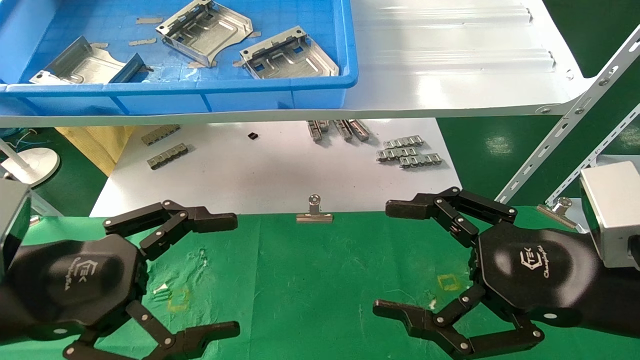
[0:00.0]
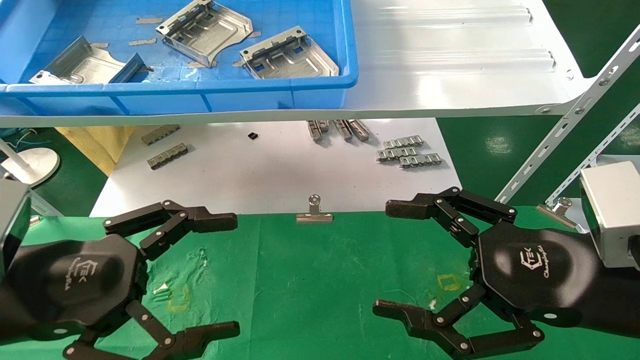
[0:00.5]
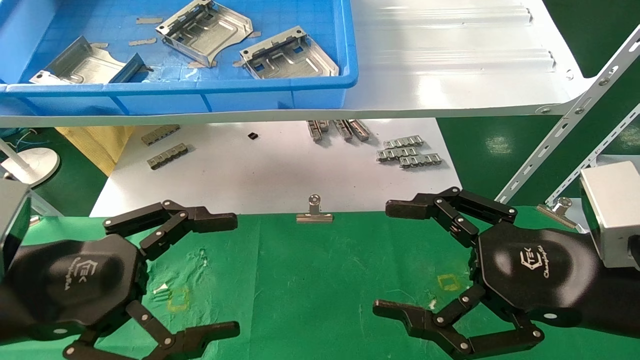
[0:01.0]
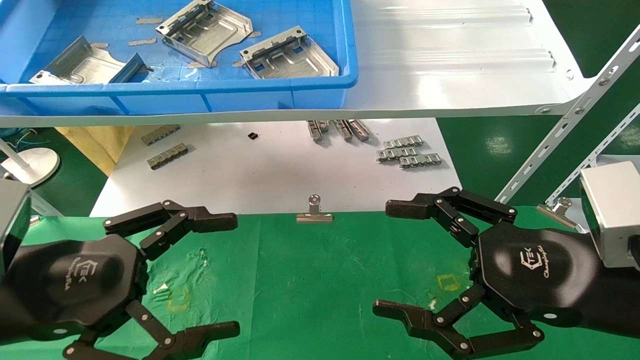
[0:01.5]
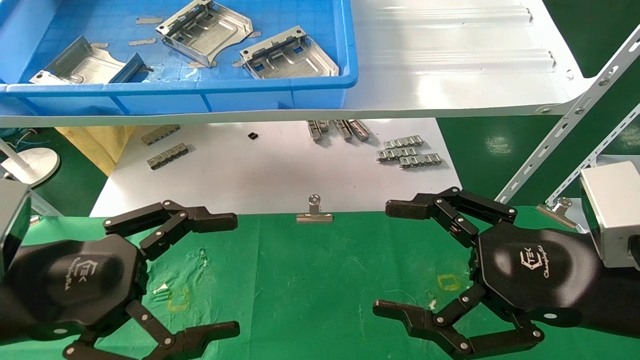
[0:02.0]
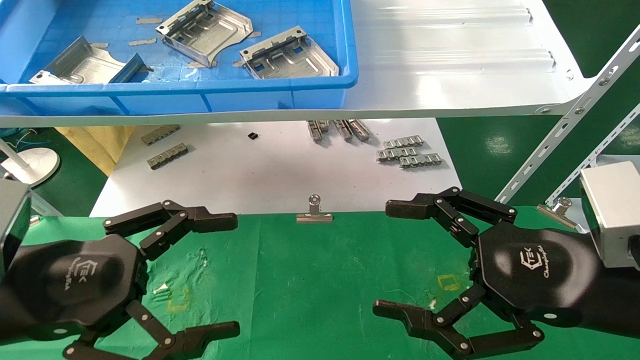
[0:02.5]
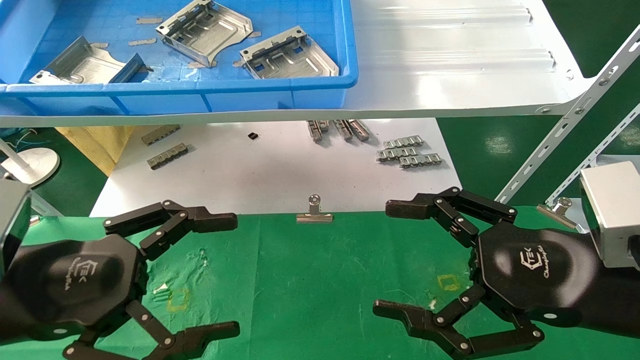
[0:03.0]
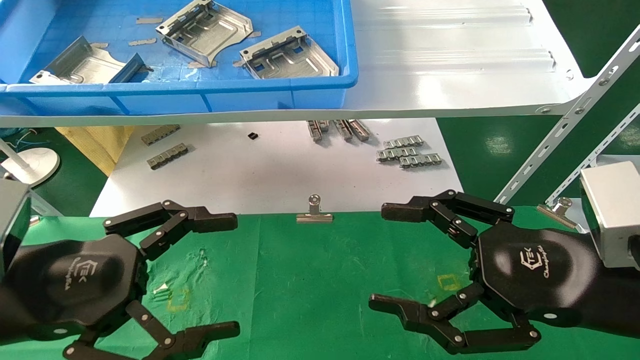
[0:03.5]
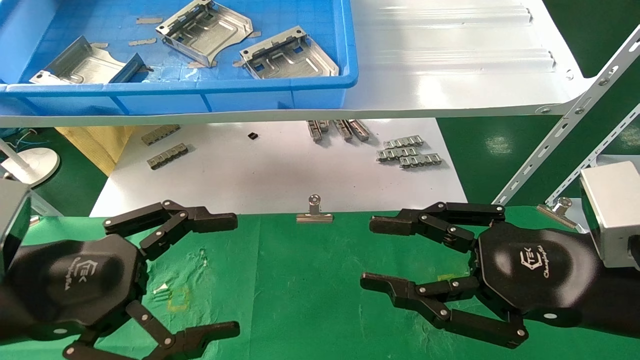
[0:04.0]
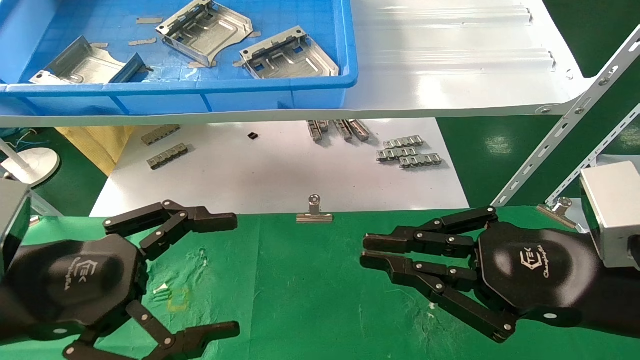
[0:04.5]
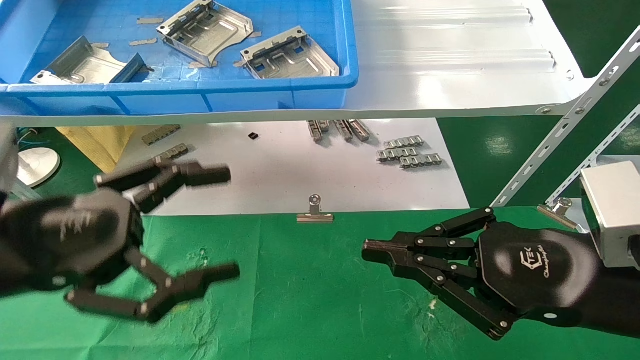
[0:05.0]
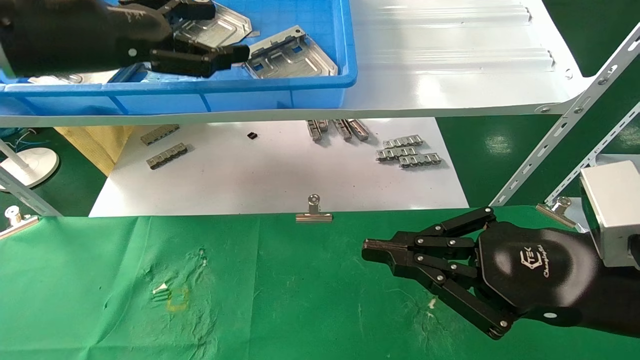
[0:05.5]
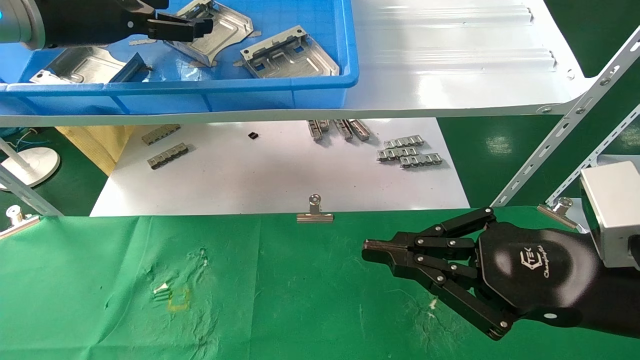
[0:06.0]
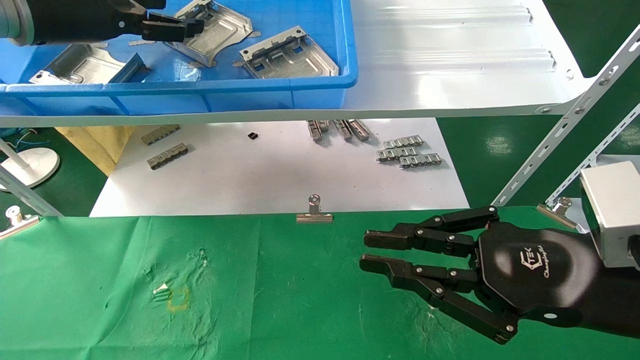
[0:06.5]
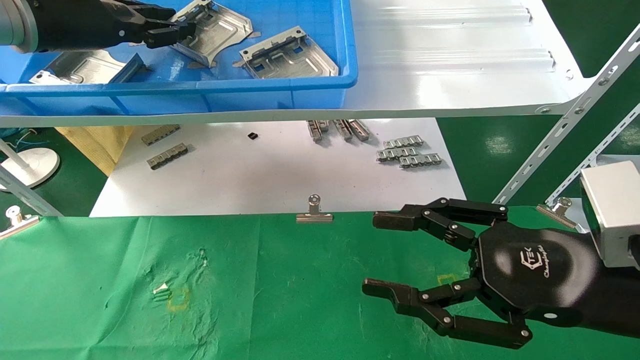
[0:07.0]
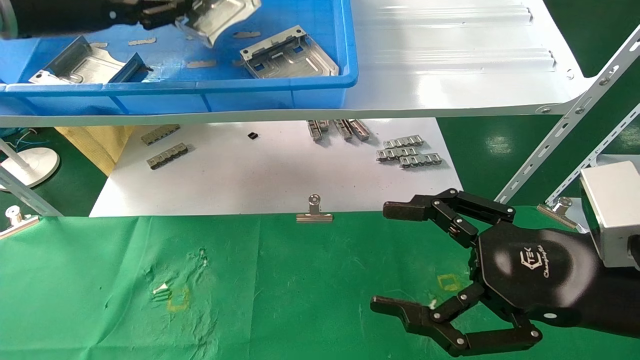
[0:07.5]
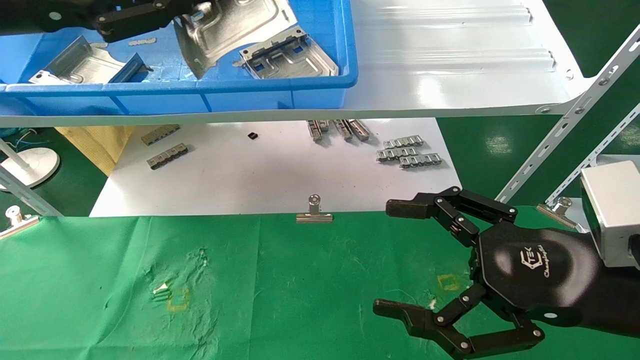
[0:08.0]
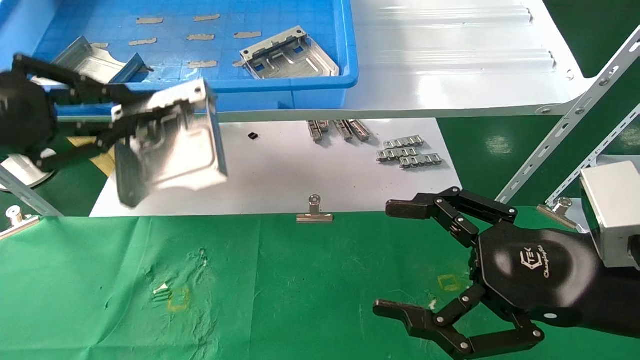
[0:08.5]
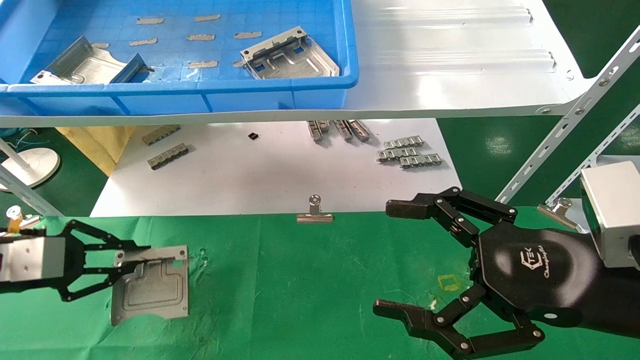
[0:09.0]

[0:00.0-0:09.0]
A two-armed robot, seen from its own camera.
Task of the whole recording: use the mechanical arm to pick up the parts and place them on the table.
Step, 0:05.5 to 0:07.0: Pick up the hard drive bracket from the feeding area.
0:00.0 to 0:02.0: The two grippers keep their place.
0:02.0 to 0:04.5: The right gripper closes up.
0:04.5 to 0:07.0: The left gripper moves upward and forward, about 30 cm, and closes up.
0:07.0 to 0:09.0: The right gripper opens. Meanwhile the left gripper moves downward and to the left, about 25 cm, and closes.

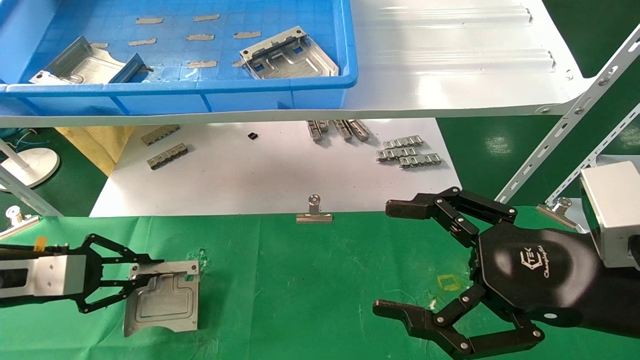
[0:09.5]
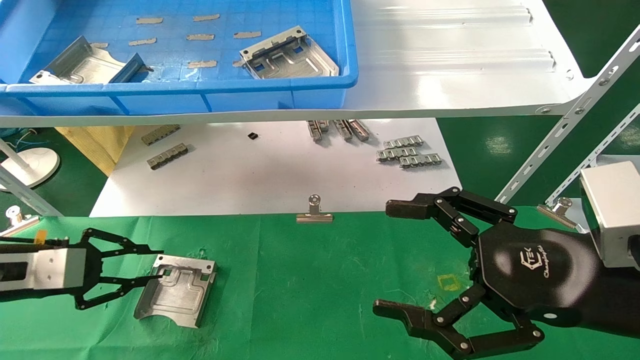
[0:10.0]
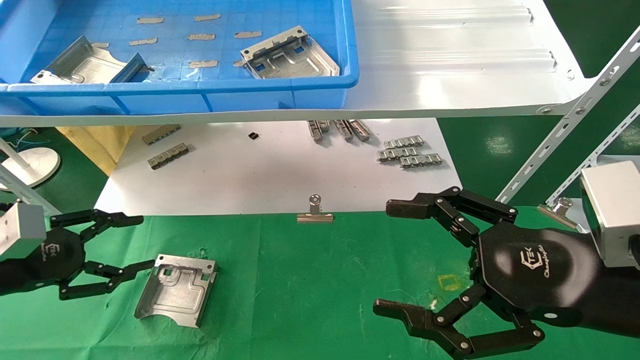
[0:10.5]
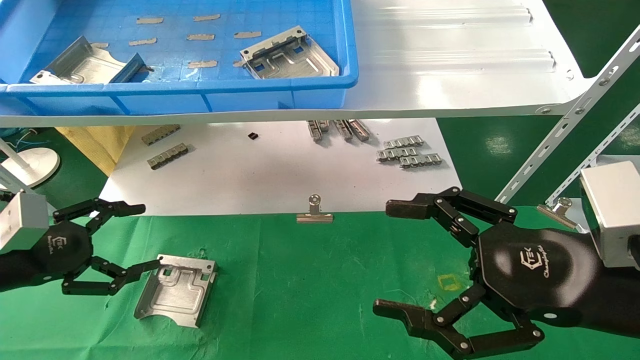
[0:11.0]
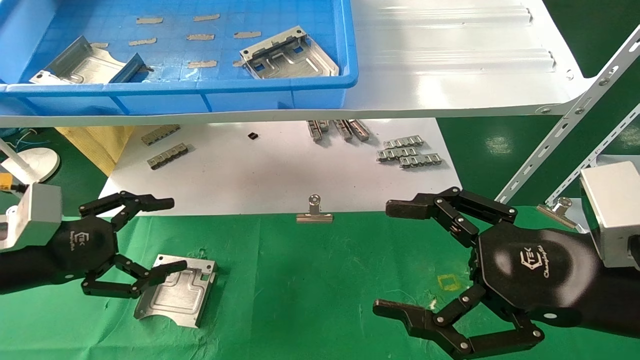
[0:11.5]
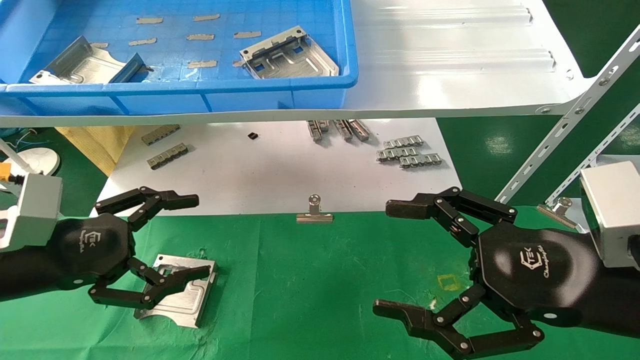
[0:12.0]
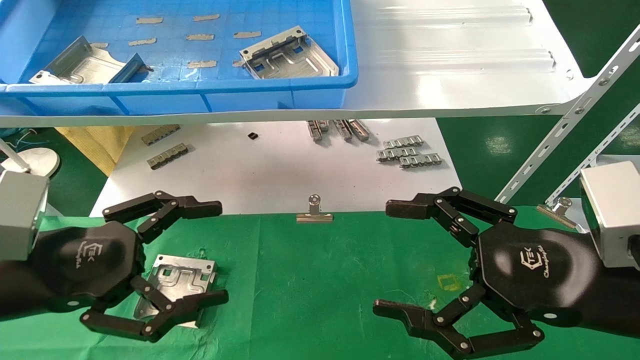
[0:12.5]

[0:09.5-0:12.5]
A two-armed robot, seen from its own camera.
Task of the whole recording: use the mechanical arm to pick up the parts and place them on the table.
0:09.5 to 0:11.0: The left gripper opens.
0:11.0 to 0:12.5: The left gripper shifts roughly 15 cm to the right and backward.

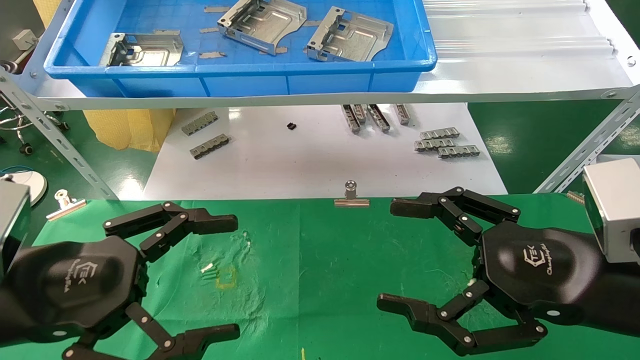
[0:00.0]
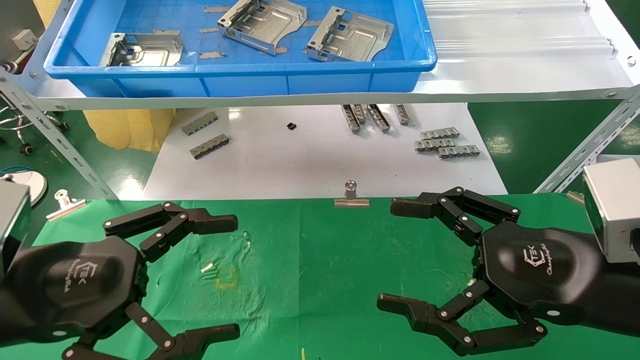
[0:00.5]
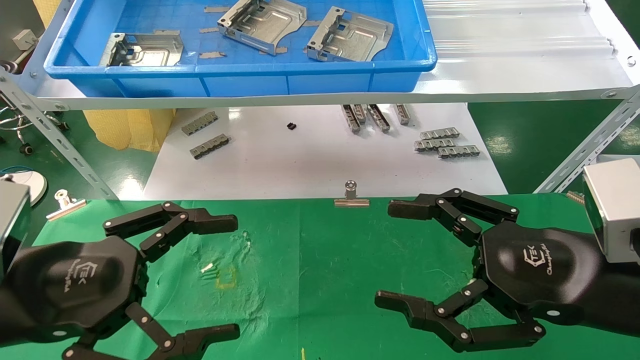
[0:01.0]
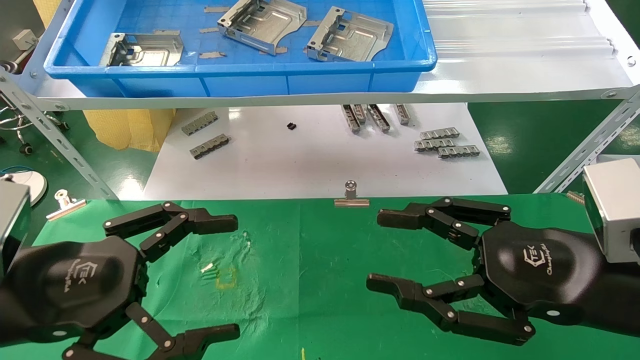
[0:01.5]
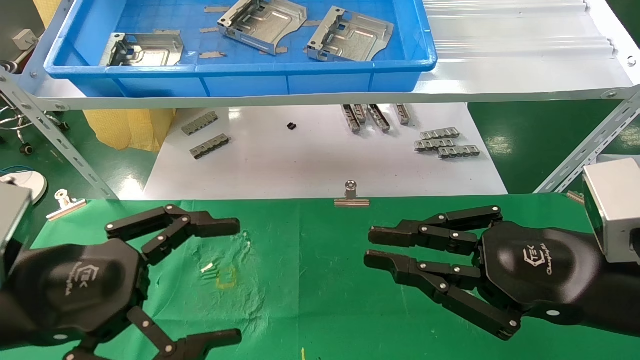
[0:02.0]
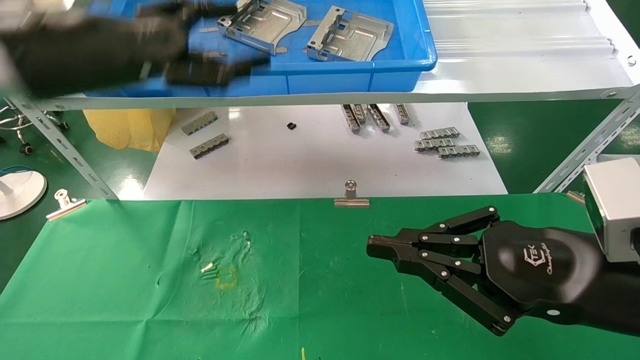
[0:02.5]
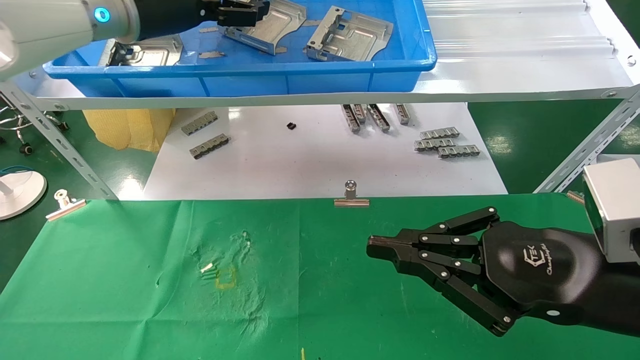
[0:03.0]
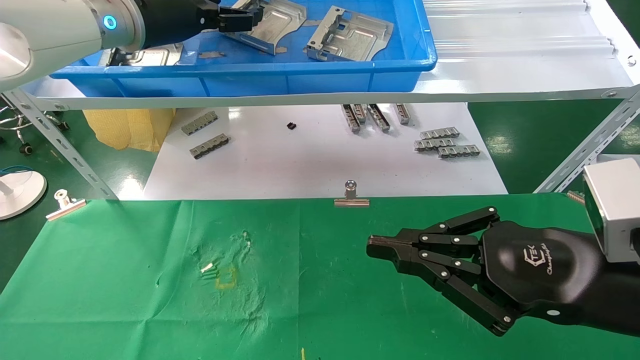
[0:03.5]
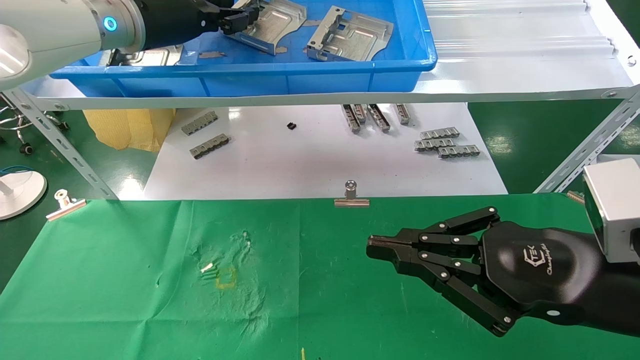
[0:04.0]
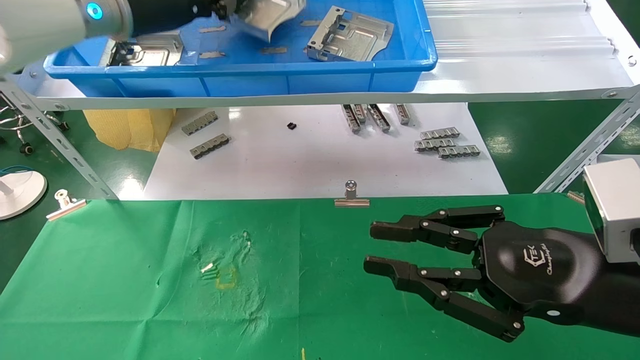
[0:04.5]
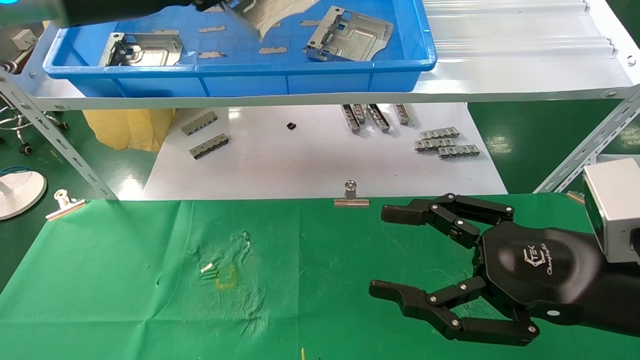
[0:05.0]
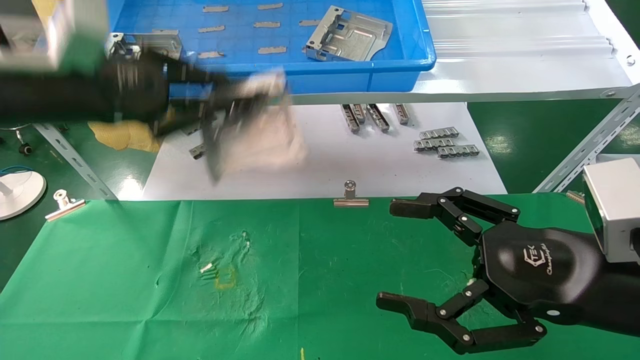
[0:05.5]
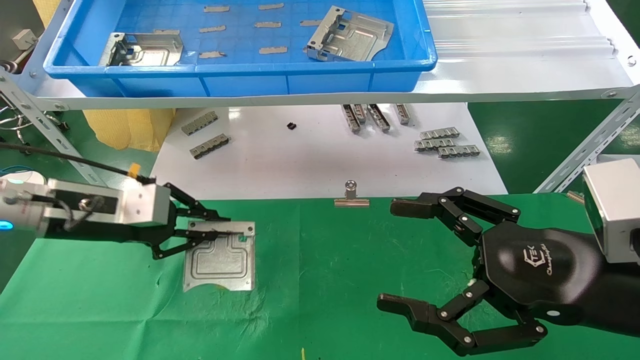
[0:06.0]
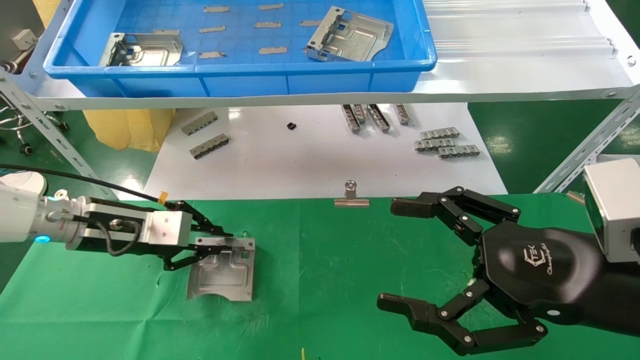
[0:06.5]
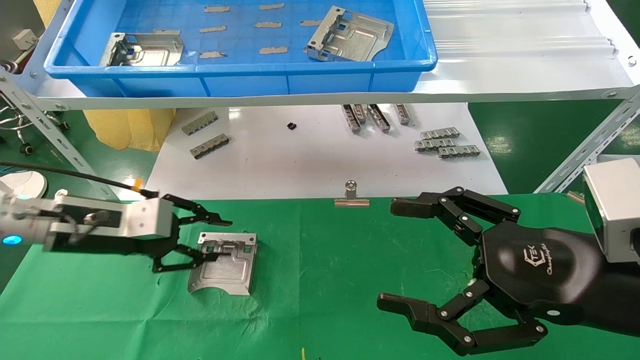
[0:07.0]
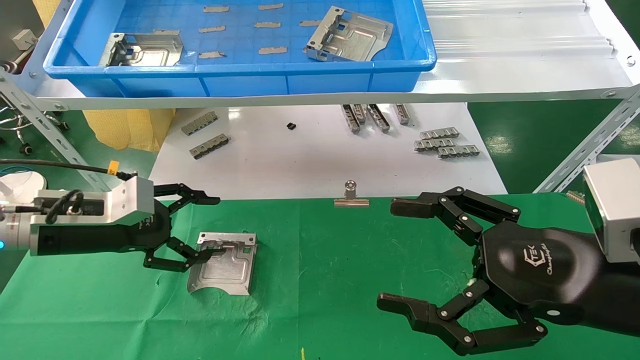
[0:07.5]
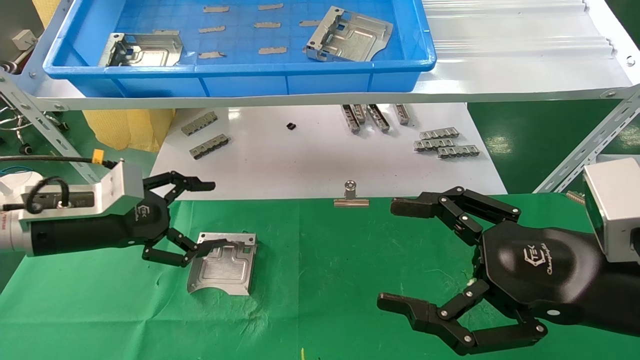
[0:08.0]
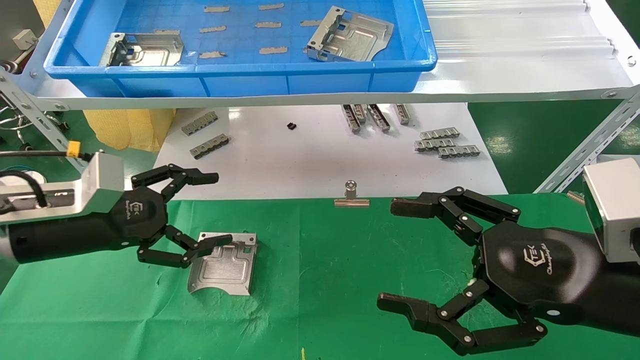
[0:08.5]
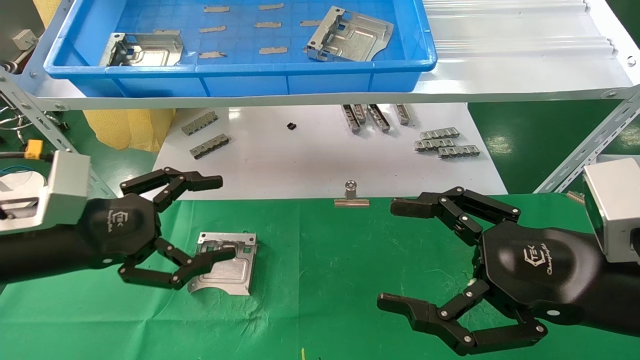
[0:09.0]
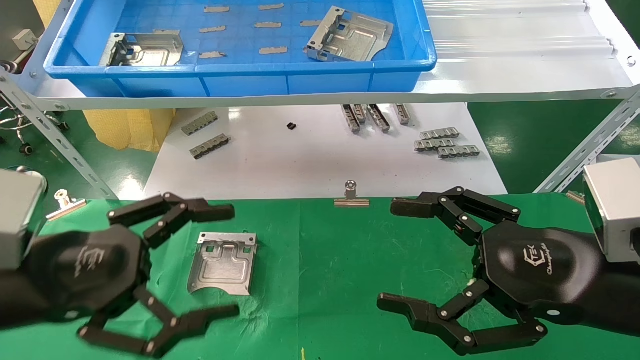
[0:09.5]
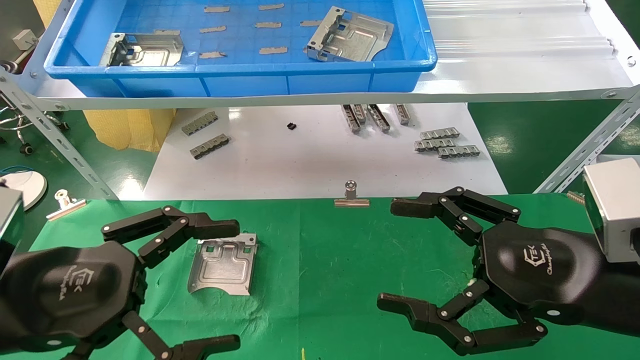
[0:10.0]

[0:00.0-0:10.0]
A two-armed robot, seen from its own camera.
Task of the whole recording: use the mechanical arm to pick up the parts and place them on the table.
Step, 0:02.0 to 0:05.0: Pick up the hard drive bracket from the feeding area.
Step, 0:05.5 to 0:08.0: Place the hard drive bracket into the box.
0:00.0 to 0:02.0: The right gripper closes its fingers.
0:02.0 to 0:04.0: The left gripper heads forward and upward, covering about 30 cm, and closes its fingers.
0:04.0 to 0:06.0: The right gripper opens its fingers. The left gripper heads downward and to the left, covering about 25 cm, and closes up.
0:06.0 to 0:08.0: The left gripper opens up.
0:08.0 to 0:10.0: The left gripper heads backward, covering approximately 15 cm.
